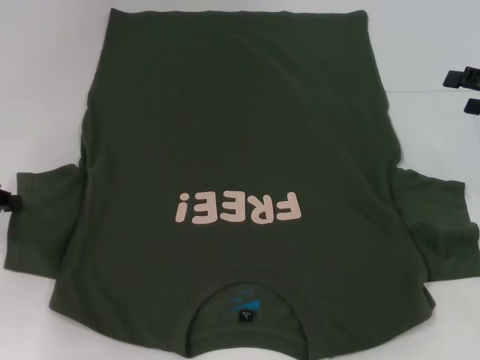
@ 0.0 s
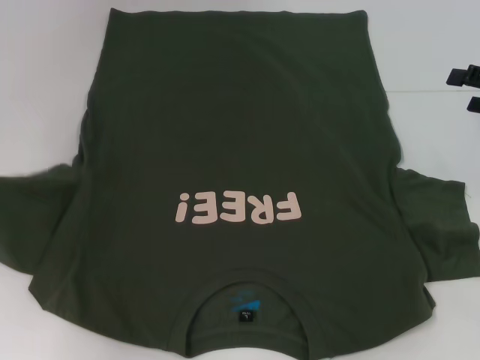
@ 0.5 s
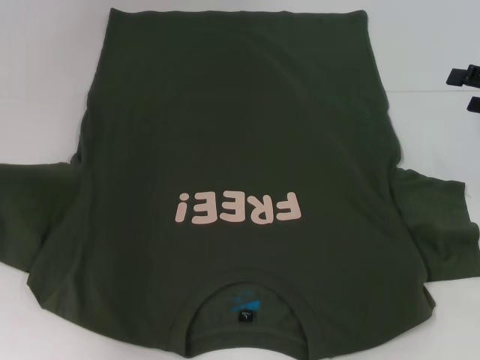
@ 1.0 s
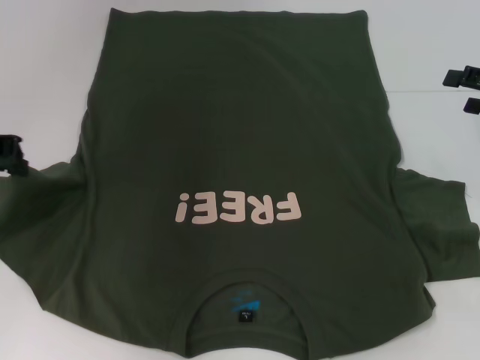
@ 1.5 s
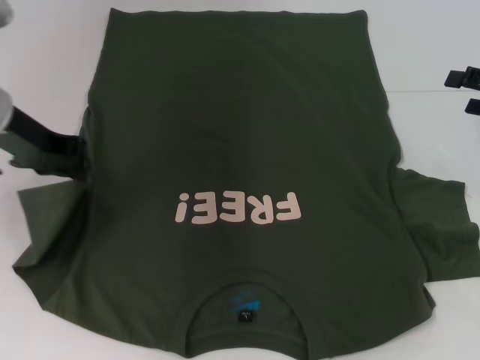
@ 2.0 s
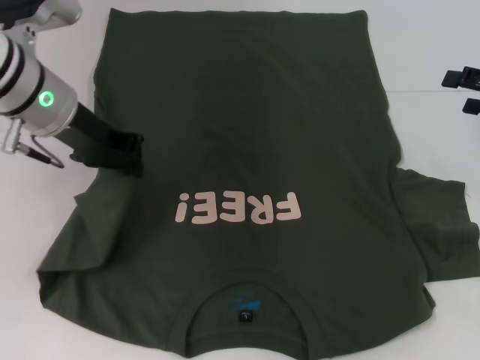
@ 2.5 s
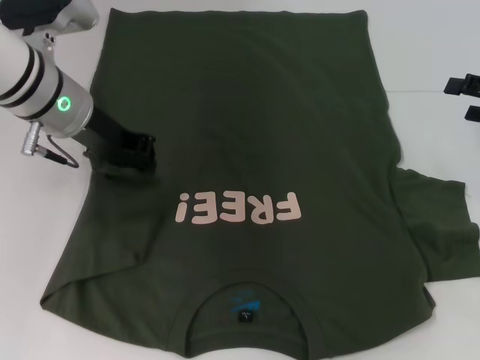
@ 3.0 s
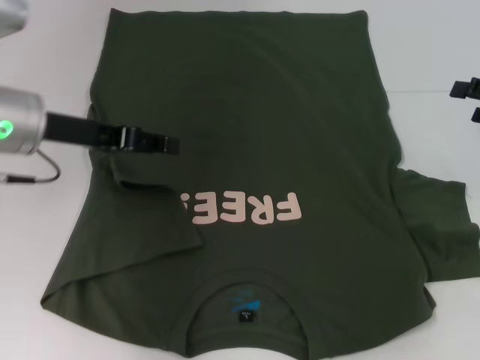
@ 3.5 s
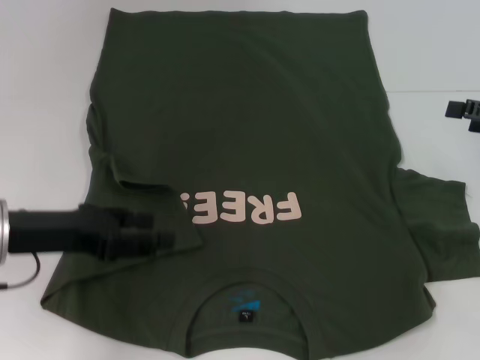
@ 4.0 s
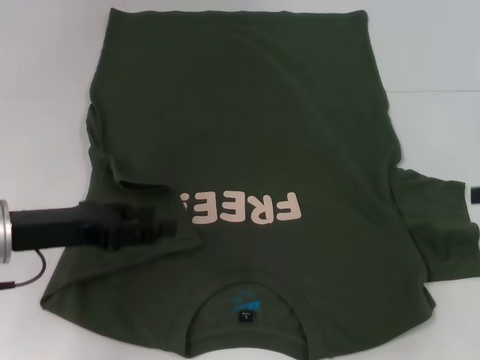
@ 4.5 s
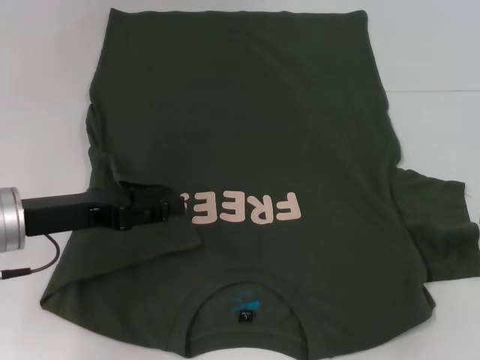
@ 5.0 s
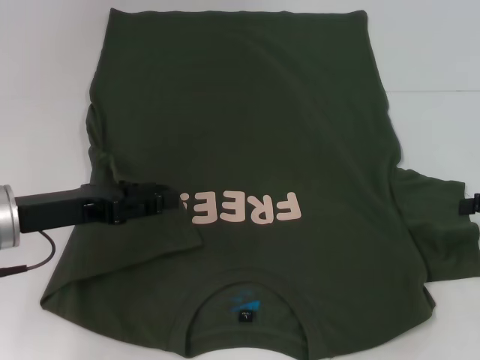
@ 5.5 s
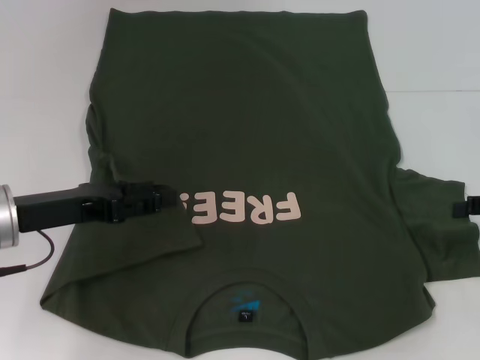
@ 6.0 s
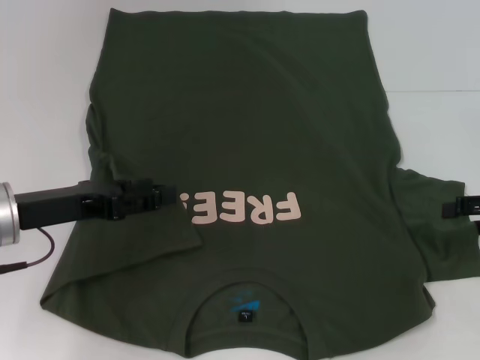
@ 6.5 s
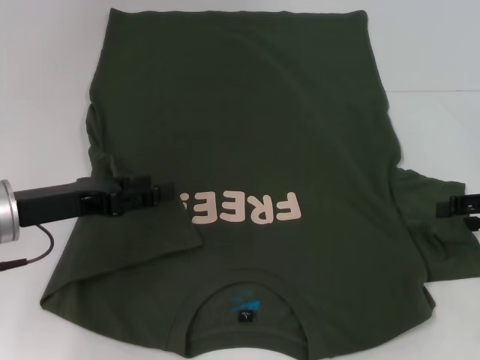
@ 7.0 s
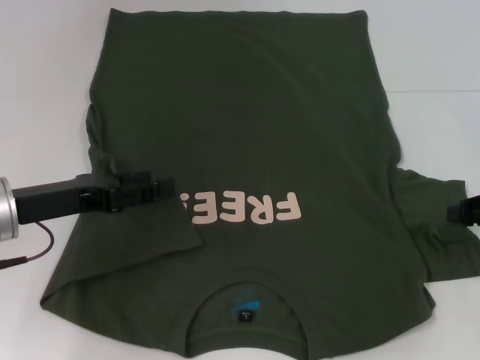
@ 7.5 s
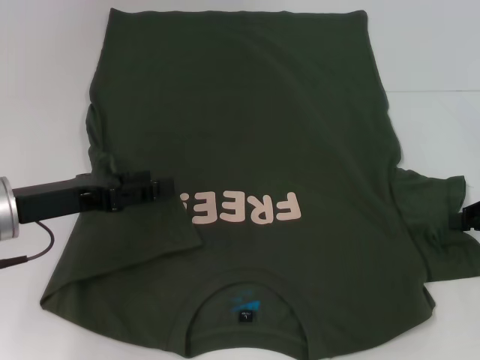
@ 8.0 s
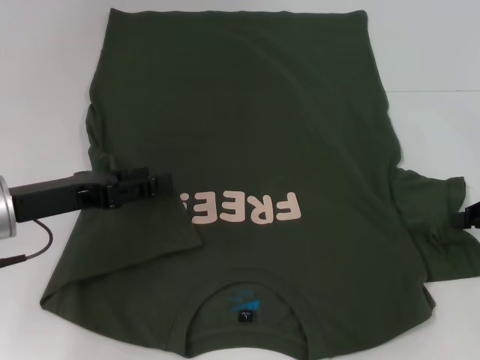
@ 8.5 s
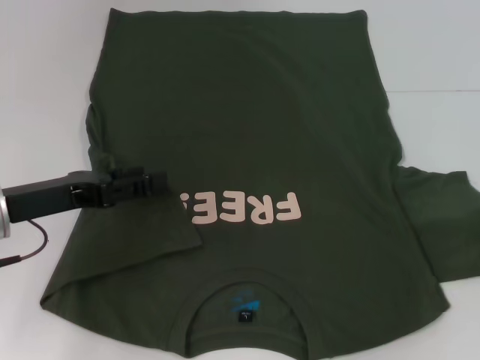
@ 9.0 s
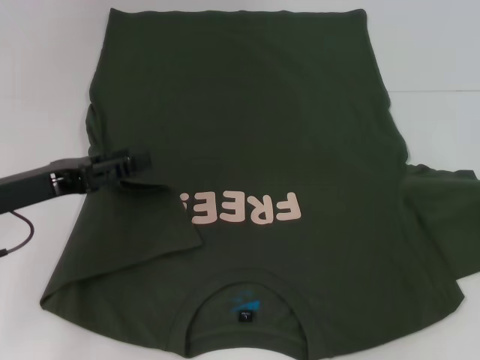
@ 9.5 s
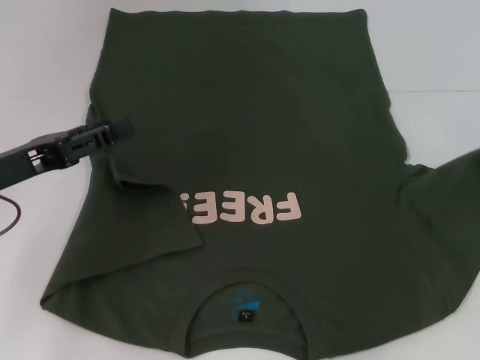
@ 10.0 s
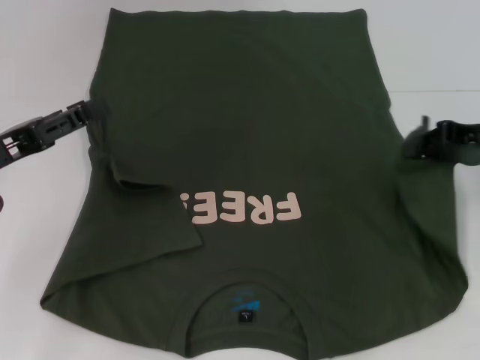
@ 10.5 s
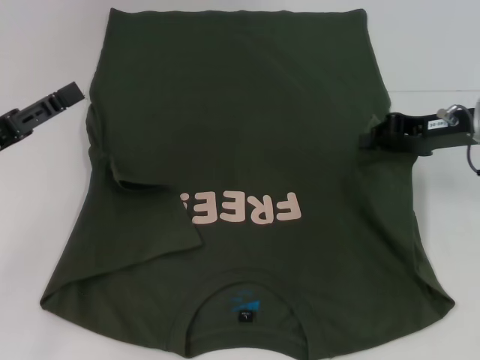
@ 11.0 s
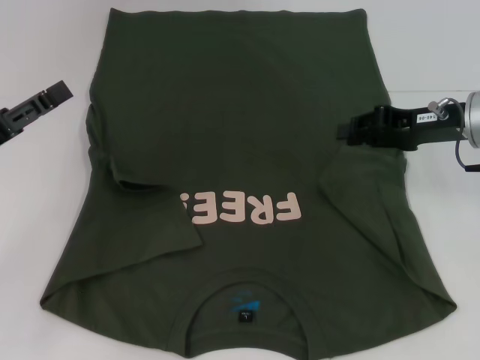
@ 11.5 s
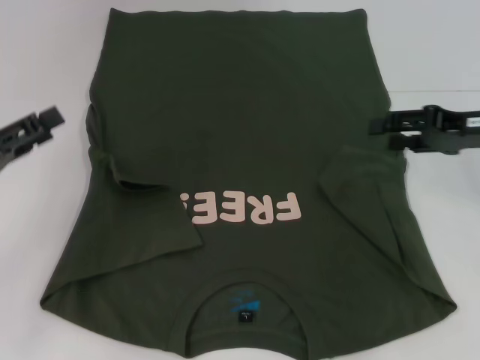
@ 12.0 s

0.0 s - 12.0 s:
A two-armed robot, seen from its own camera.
Step, 0.0 s - 3.0 s: Fold the bottom left sleeve with your left hand.
Step, 3.5 s - 11.5 s: Fold the bottom right sleeve with your right hand.
0.0 s - 2.0 s: The left gripper heads to the right, upward and forward, covering about 15 cm.
2.0 s - 4.0 s: The left gripper goes roughly 15 cm backward and downward, and opens its fingers.
8.0 s - 10.0 s: The right gripper ends up roughly 5 cm from where it was.
10.0 s - 12.0 s: The right gripper travels to the left by some 10 cm, and opens its fingers; the left gripper shifts by roughly 5 cm.

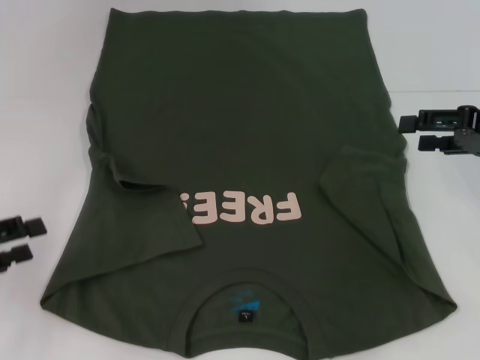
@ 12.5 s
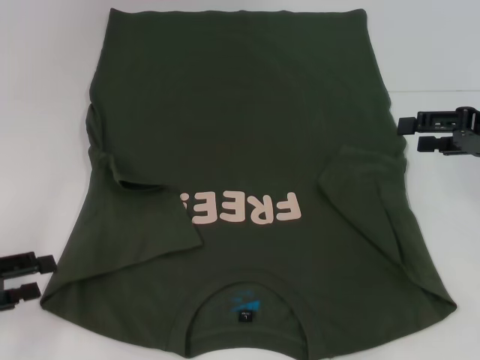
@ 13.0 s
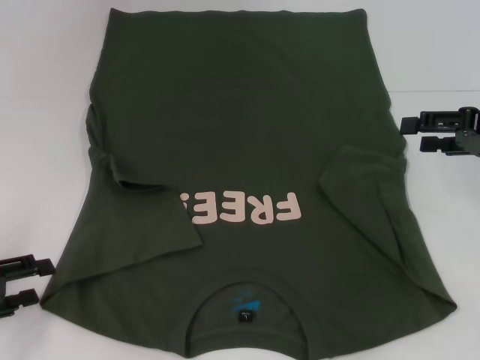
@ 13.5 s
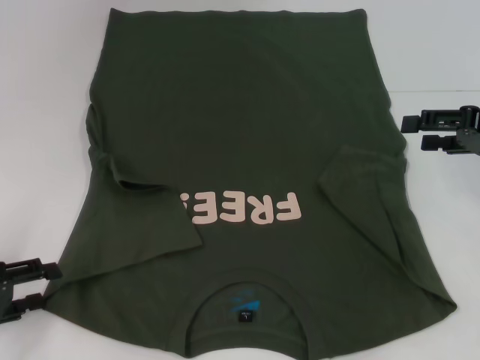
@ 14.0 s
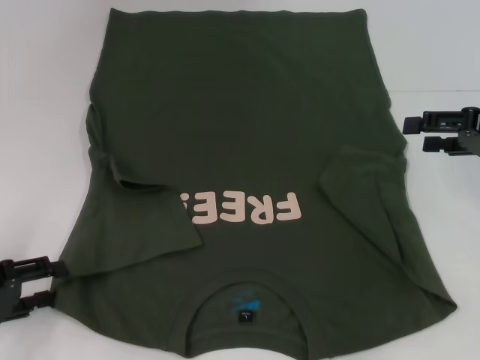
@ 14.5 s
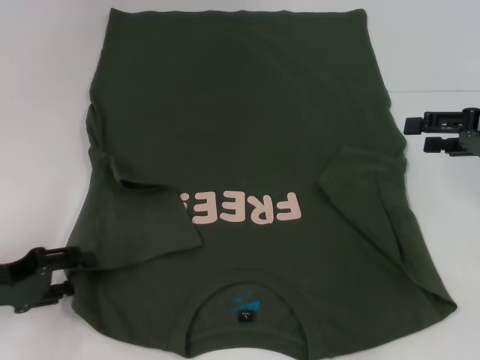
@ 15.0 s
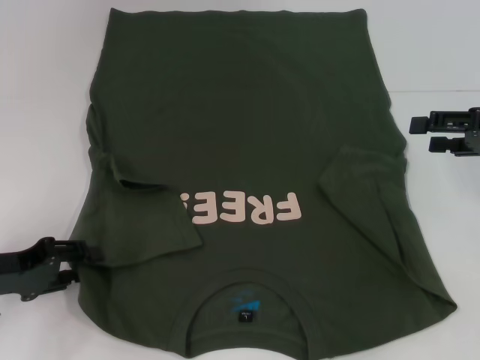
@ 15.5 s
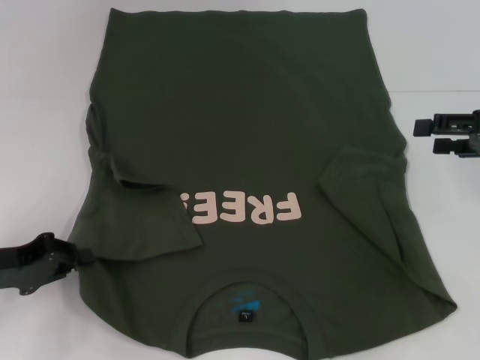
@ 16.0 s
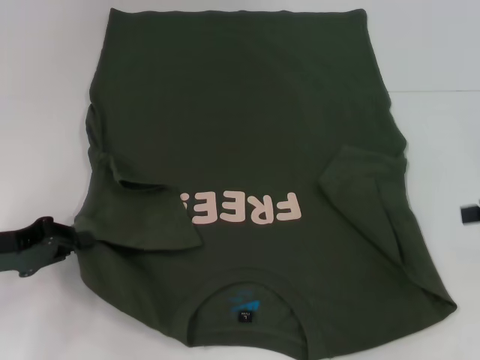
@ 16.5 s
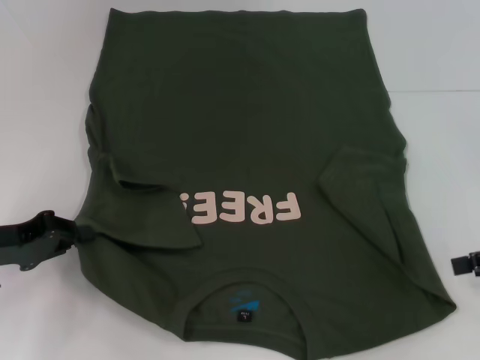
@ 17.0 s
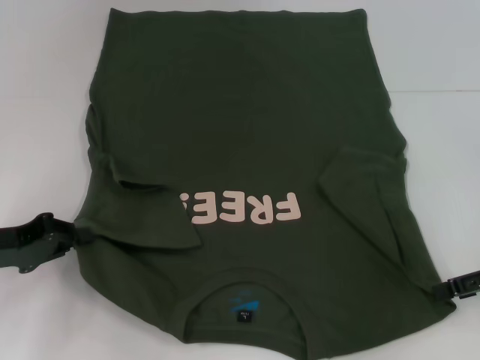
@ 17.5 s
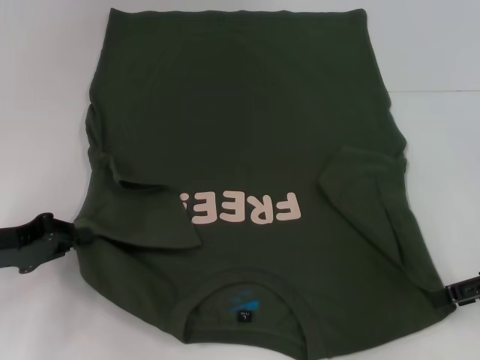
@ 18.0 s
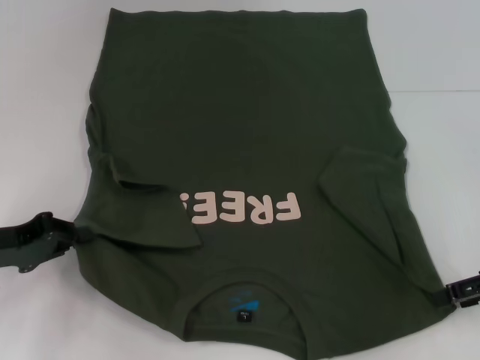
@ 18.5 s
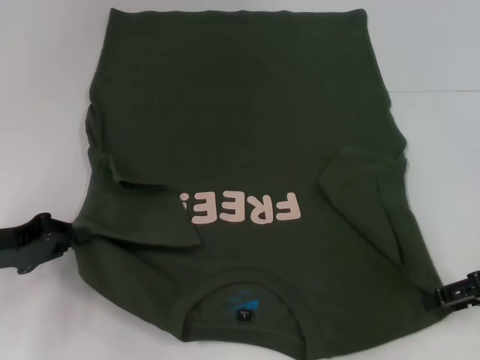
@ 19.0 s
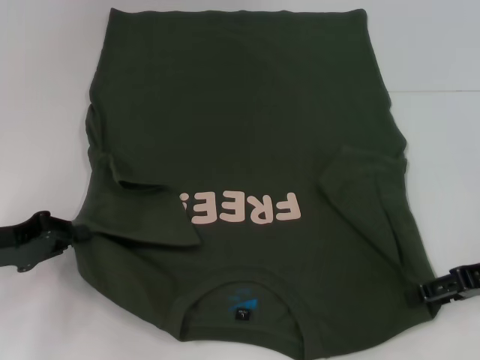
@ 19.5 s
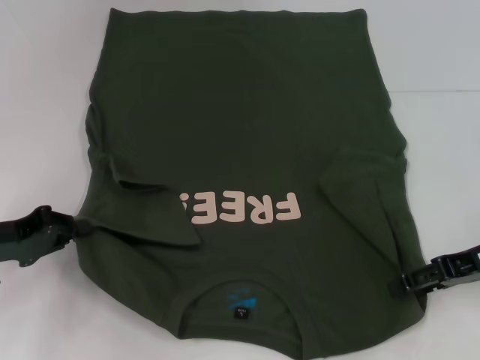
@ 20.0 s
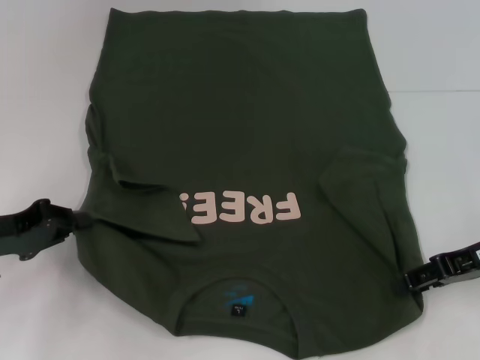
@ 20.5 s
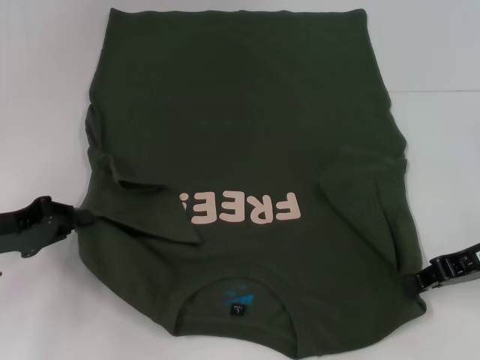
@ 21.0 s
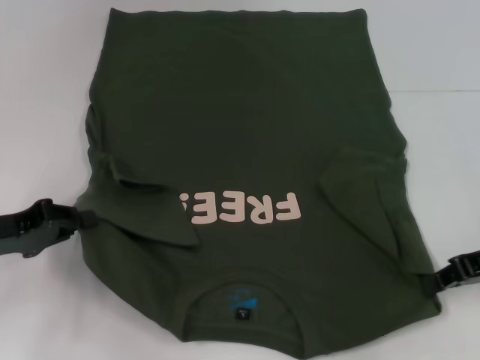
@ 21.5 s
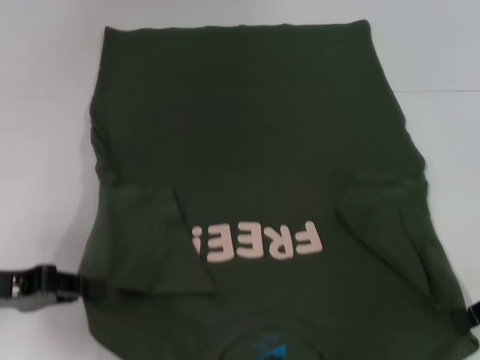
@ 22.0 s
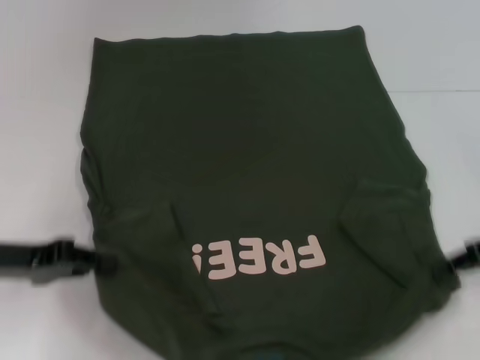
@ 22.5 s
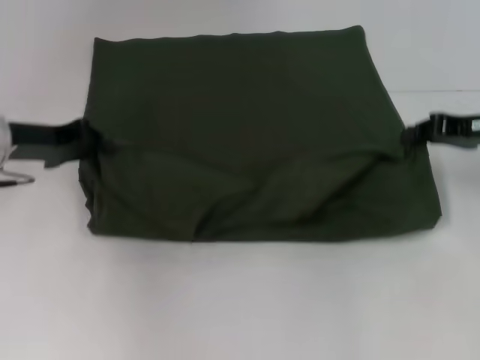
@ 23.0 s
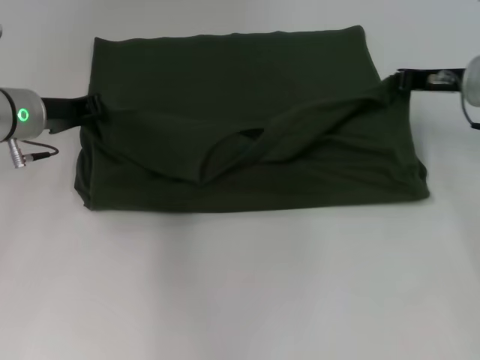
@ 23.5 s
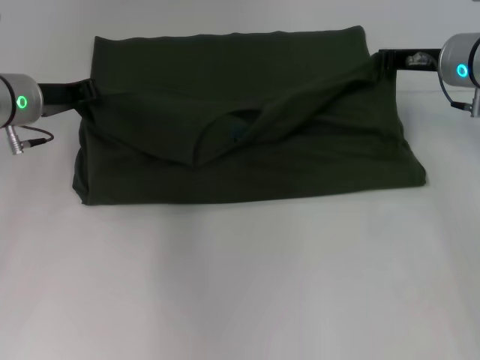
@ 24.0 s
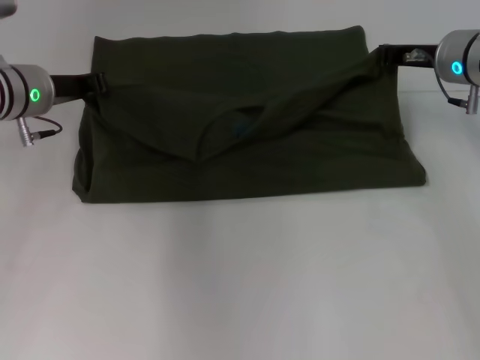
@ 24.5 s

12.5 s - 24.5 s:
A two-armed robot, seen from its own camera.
Step, 12.5 s - 15.5 s: Grab the bottom left corner with your left hand.
Step, 16.0 s - 21.0 s: Grab the bottom right corner with your right hand.
12.5 s - 14.5 s: There are only small adjustments of the grippers.
14.5 s - 16.5 s: The right gripper changes place by approximately 5 cm. Meanwhile the left gripper ends up roughly 5 cm from where it was, and closes its fingers.
16.5 s - 18.5 s: The right gripper shifts by approximately 5 cm.
18.5 s - 20.5 s: The right gripper shifts by approximately 5 cm.
20.5 s - 22.5 s: The right gripper closes.
22.5 s - 24.5 s: The left gripper moves forward, about 15 cm, while the right gripper travels forward and to the left by roughly 20 cm.

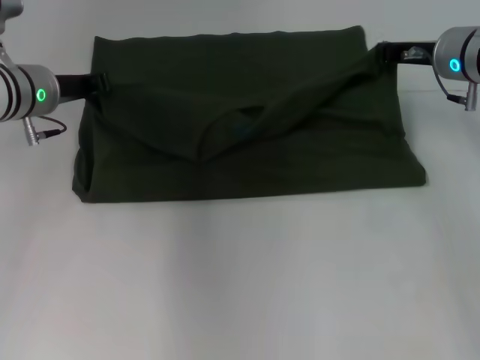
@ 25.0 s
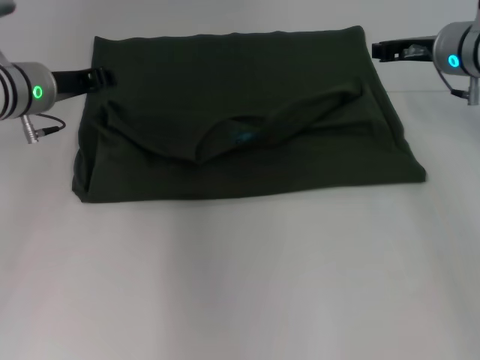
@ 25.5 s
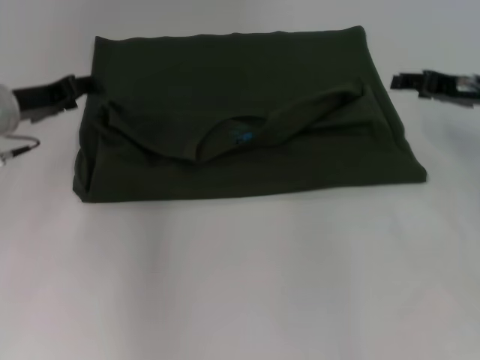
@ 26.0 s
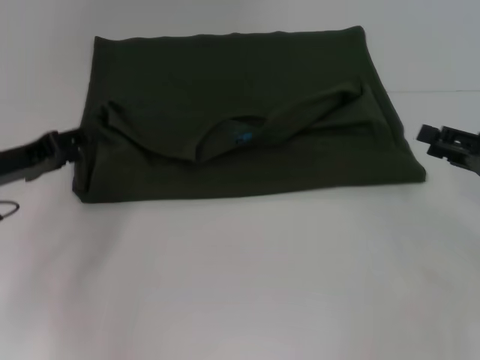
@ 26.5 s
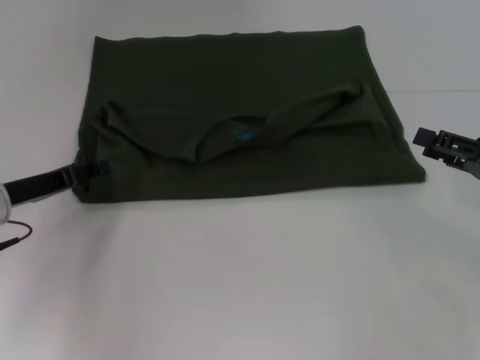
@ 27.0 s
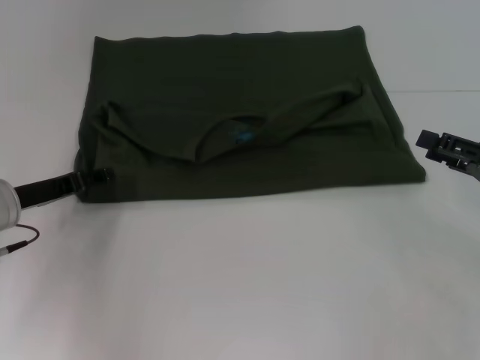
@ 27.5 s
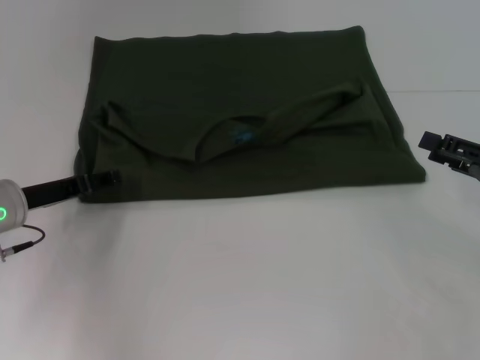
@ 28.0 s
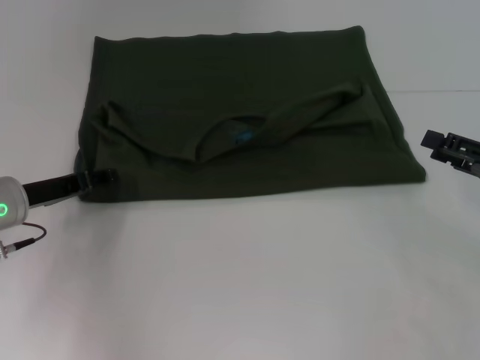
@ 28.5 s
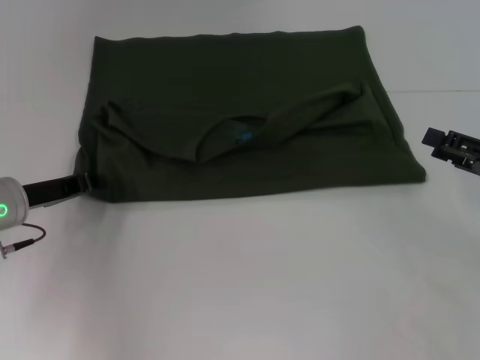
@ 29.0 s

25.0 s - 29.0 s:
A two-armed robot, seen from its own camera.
25.0 s - 27.0 s: The left gripper moves backward, downward and to the left, approximately 15 cm, and opens. The right gripper travels backward and to the right by about 20 cm, and opens up.
27.0 s - 29.0 s: The left gripper closes.
